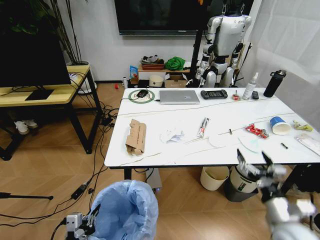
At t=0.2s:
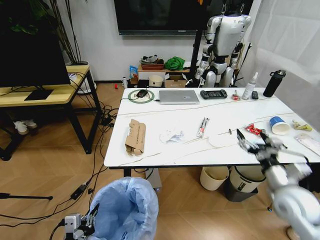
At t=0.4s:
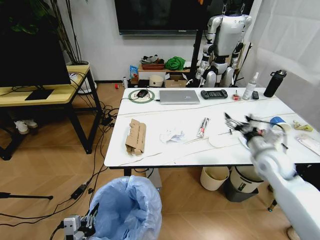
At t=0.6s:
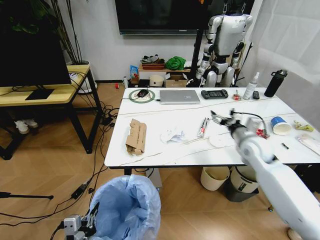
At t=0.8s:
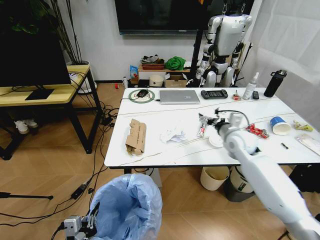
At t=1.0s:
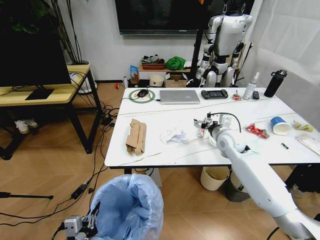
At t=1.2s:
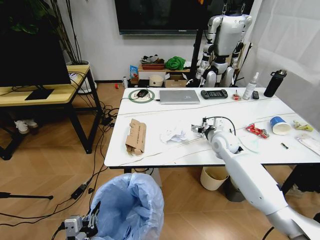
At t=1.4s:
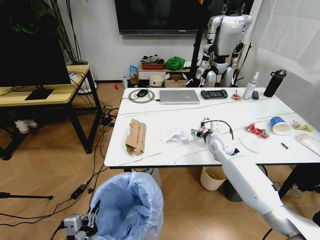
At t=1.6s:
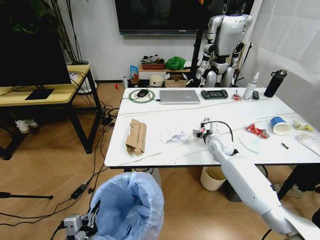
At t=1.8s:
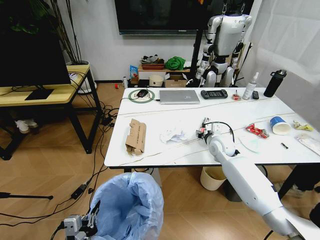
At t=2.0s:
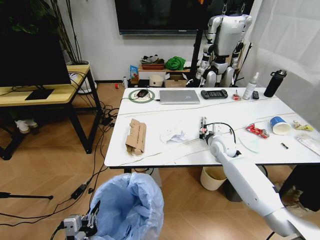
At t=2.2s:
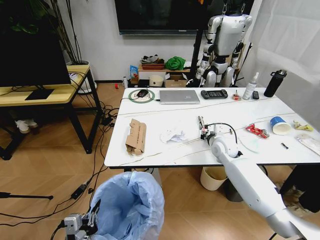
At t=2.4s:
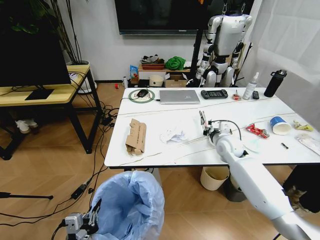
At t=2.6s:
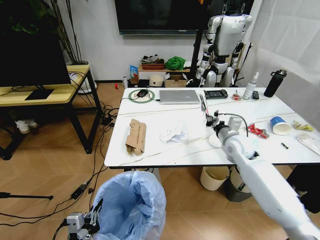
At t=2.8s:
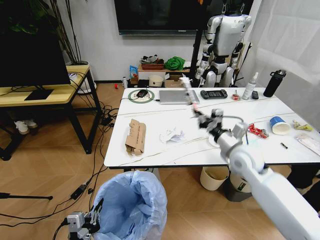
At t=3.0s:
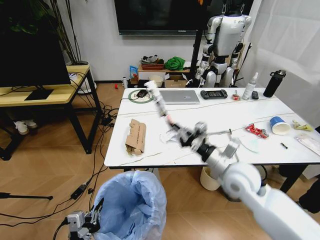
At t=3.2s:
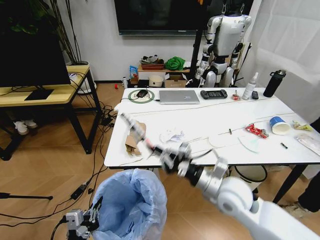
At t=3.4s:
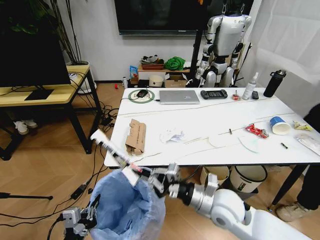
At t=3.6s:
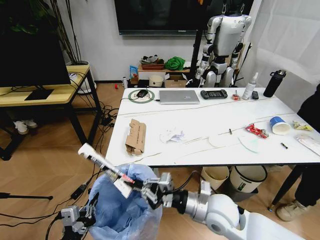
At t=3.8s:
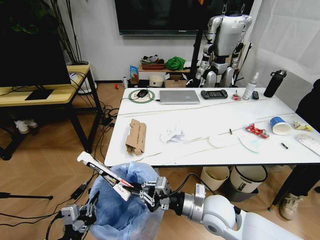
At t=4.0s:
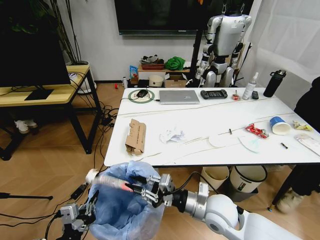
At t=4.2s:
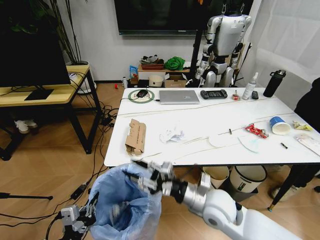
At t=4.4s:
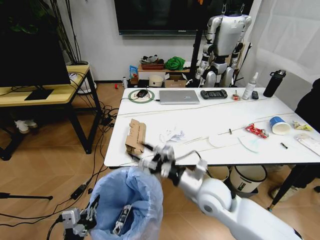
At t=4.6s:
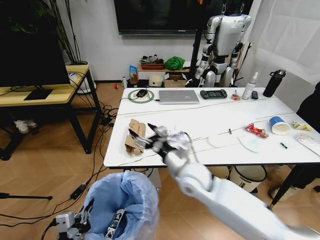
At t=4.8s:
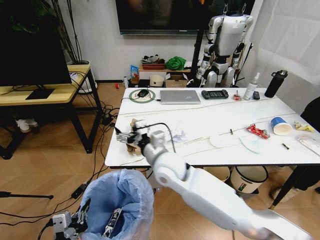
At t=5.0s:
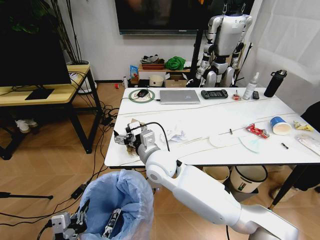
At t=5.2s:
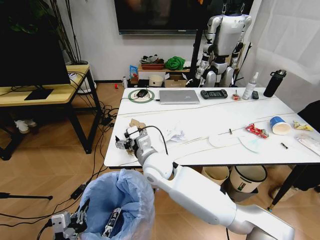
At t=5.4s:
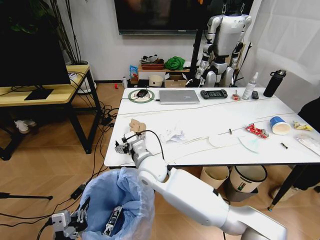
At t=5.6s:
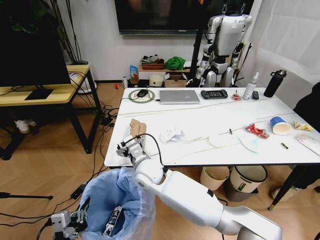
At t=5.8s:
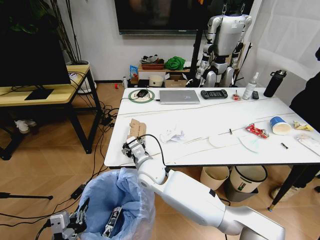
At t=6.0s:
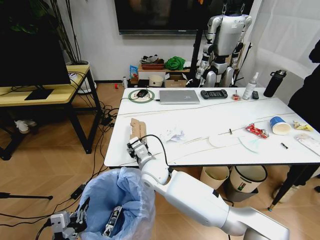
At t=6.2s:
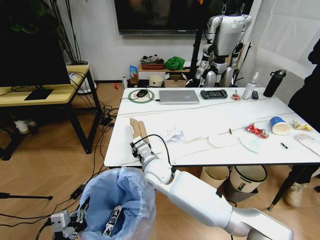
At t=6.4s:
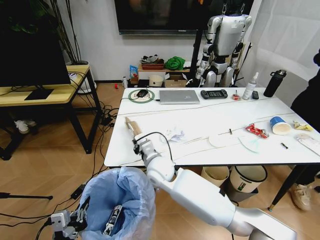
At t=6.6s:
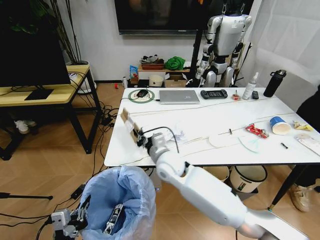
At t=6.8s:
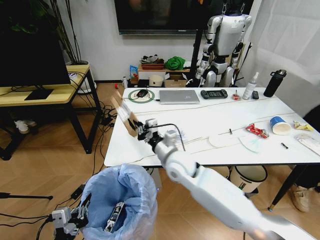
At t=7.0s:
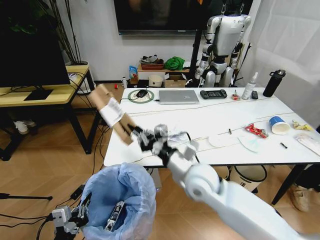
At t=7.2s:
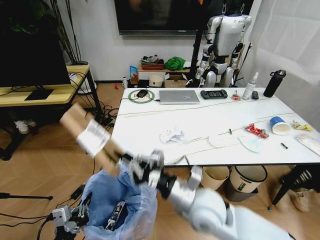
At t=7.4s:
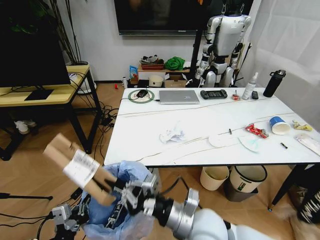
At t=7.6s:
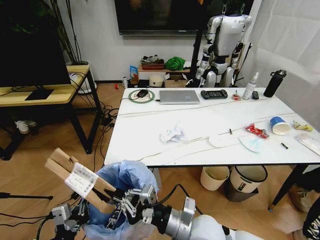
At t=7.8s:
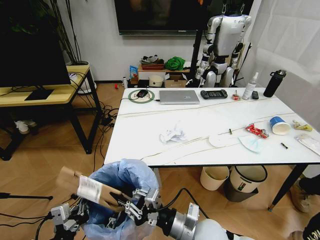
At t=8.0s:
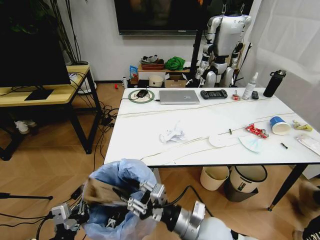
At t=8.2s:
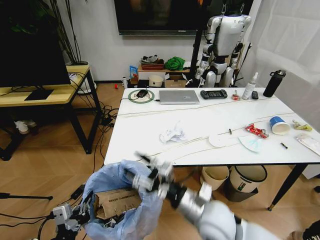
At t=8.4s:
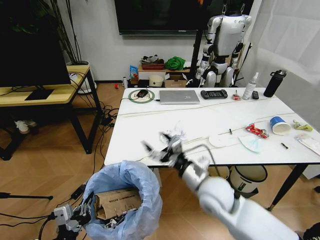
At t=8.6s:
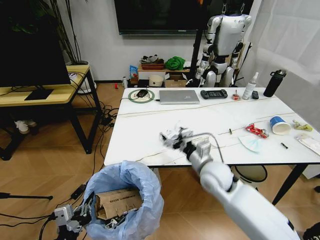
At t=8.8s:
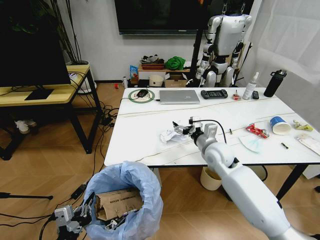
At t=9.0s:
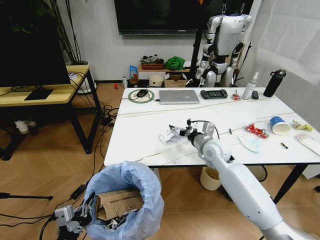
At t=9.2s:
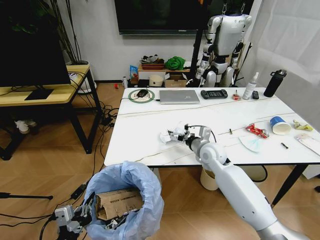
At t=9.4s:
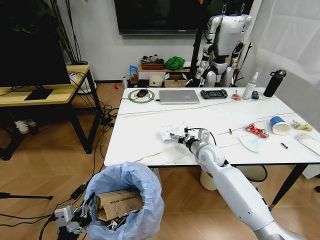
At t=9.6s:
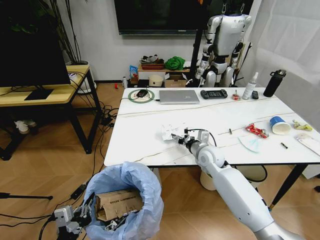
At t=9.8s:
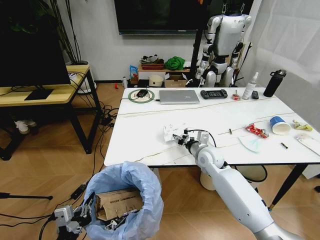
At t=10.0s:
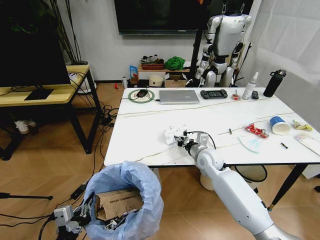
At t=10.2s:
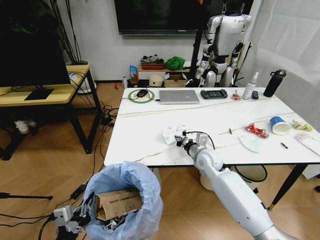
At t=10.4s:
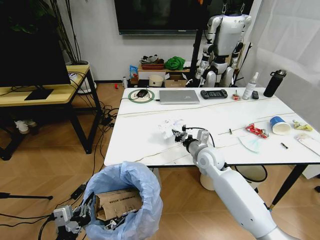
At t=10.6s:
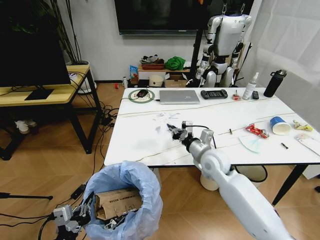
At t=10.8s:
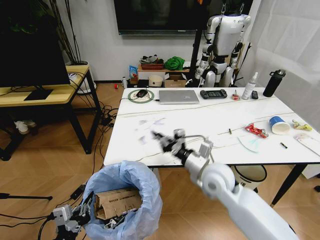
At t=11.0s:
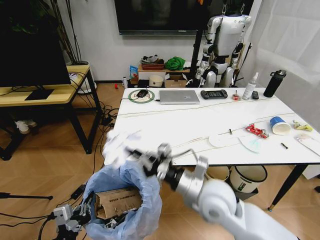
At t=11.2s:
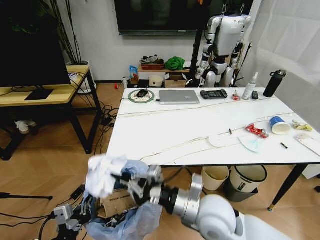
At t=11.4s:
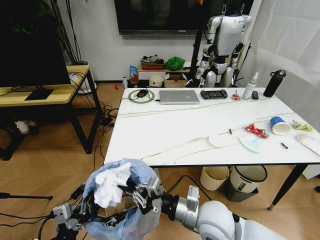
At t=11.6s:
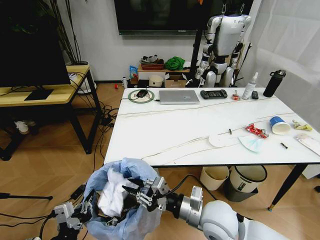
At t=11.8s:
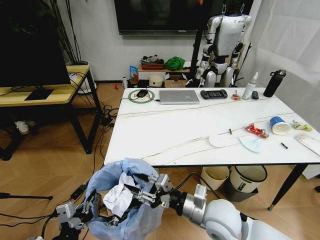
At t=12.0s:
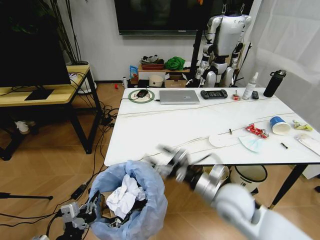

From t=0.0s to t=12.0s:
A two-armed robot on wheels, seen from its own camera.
Task of the whole recording: Pick up the trash bin and place the trash from the table into it.
From t=0.0s to t=1.6s: The right gripper moves forward, some 30 cm; the left gripper moves roughly 5 cm.
From t=1.6s to t=3.0s: The right gripper moves backward and upward, about 20 cm, and closes its fingers.
From t=3.0s to t=4.4s: The right gripper moves to the left, some 10 cm, and opens.
From t=4.4s to t=6.0s: The right gripper heads to the left and forward, covering about 20 cm.
From t=6.0s to t=7.6s: The right gripper travels backward and to the right by approximately 25 cm, and closes its fingers.
From t=7.6s to t=9.0s: The right gripper shifts roughly 25 cm forward, and opens its fingers.
From t=9.0s to t=10.4s: The right gripper closes up.
From t=10.4s to t=12.0s: The right gripper travels backward by approximately 15 cm, and opens.

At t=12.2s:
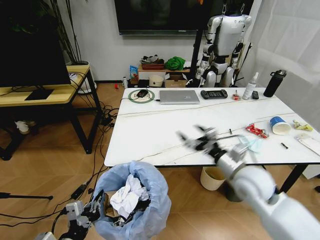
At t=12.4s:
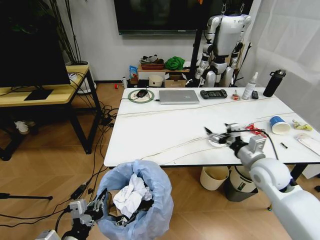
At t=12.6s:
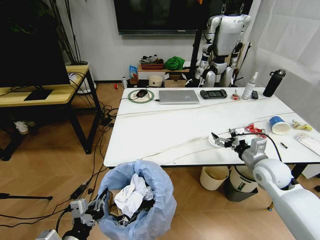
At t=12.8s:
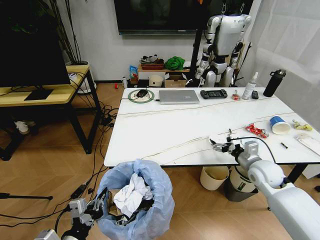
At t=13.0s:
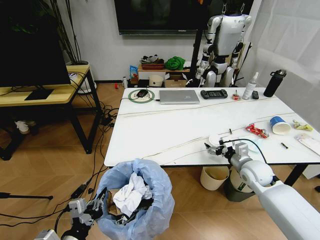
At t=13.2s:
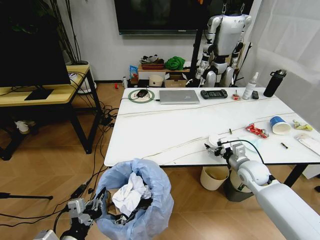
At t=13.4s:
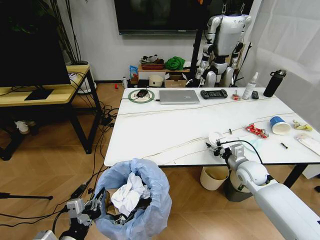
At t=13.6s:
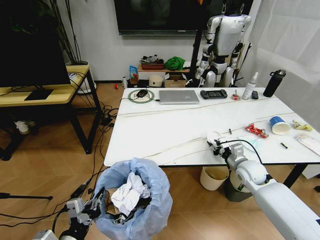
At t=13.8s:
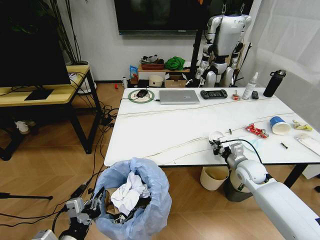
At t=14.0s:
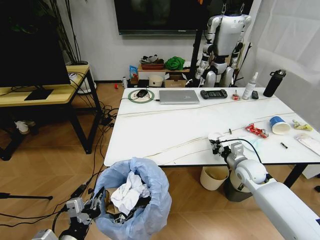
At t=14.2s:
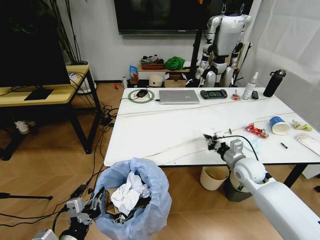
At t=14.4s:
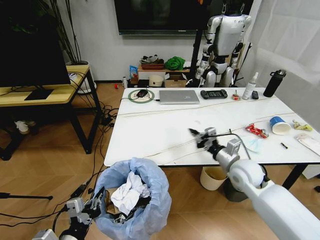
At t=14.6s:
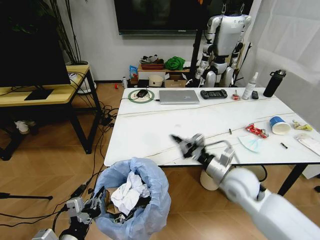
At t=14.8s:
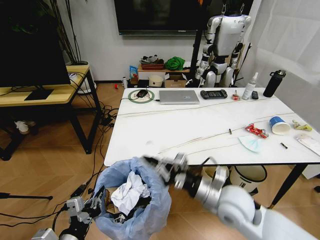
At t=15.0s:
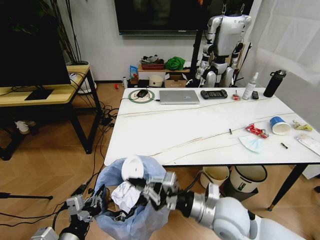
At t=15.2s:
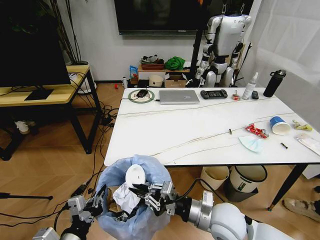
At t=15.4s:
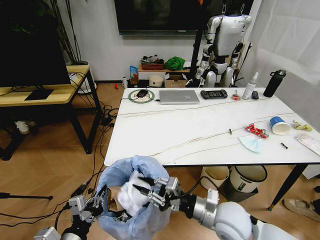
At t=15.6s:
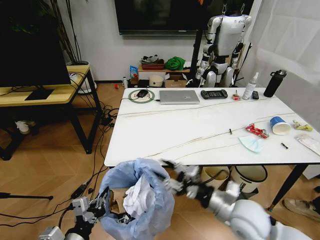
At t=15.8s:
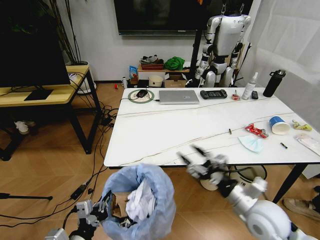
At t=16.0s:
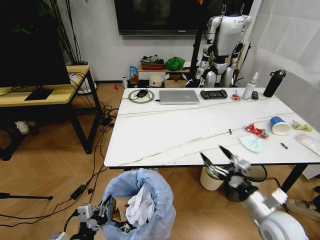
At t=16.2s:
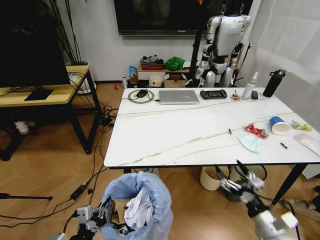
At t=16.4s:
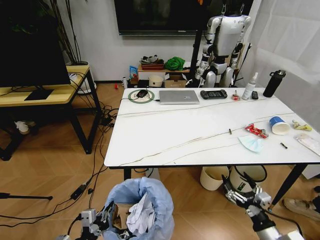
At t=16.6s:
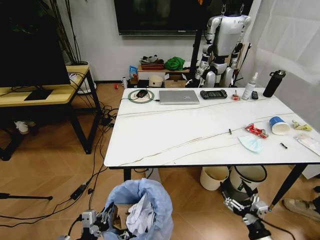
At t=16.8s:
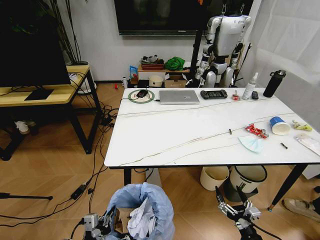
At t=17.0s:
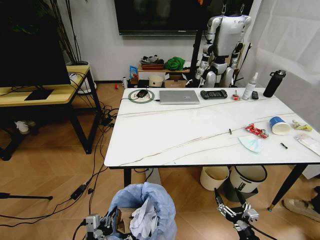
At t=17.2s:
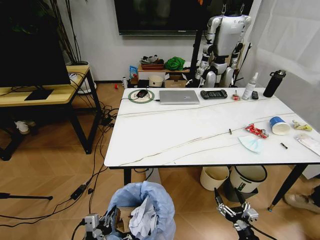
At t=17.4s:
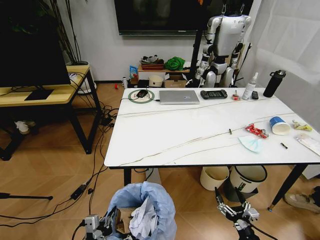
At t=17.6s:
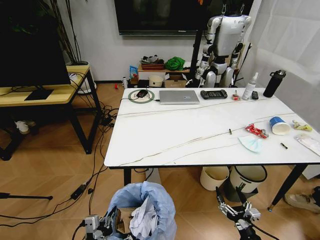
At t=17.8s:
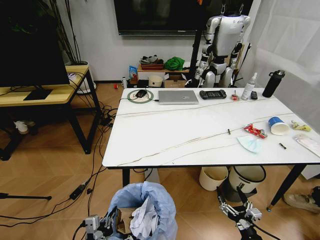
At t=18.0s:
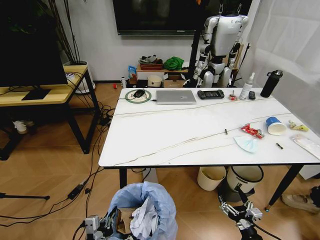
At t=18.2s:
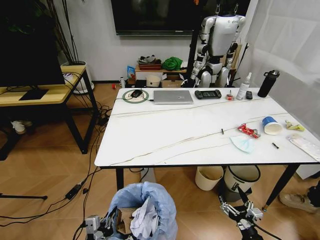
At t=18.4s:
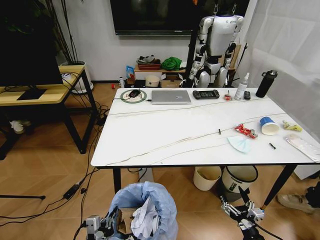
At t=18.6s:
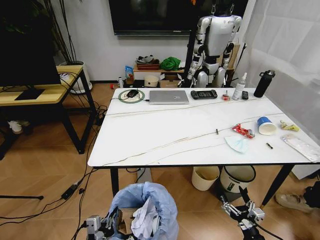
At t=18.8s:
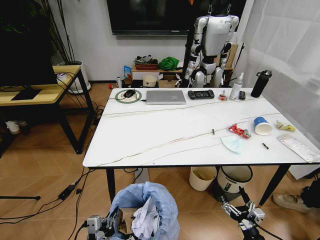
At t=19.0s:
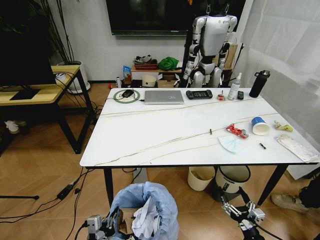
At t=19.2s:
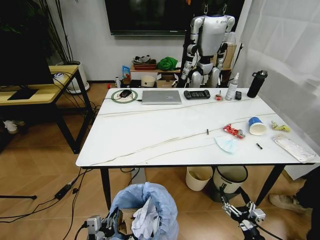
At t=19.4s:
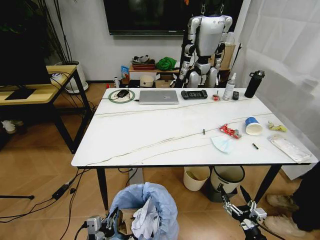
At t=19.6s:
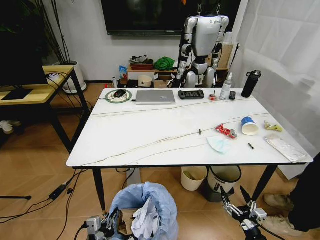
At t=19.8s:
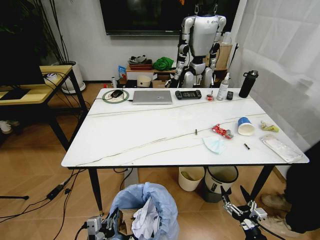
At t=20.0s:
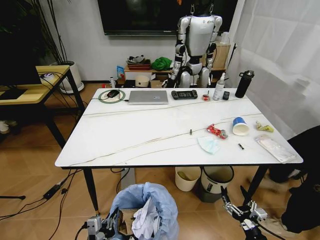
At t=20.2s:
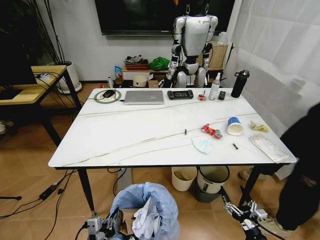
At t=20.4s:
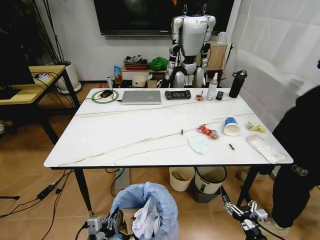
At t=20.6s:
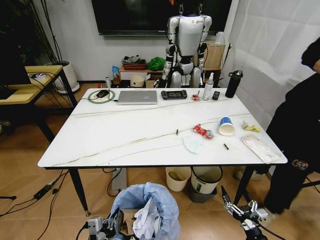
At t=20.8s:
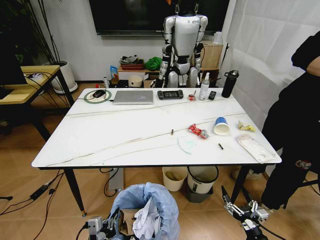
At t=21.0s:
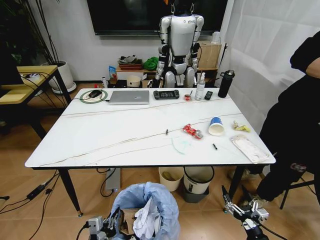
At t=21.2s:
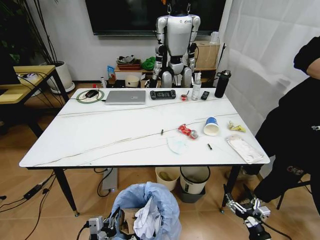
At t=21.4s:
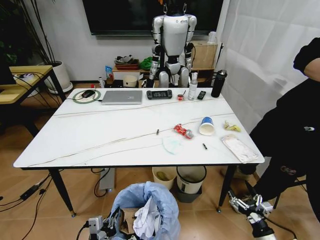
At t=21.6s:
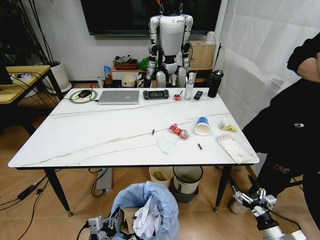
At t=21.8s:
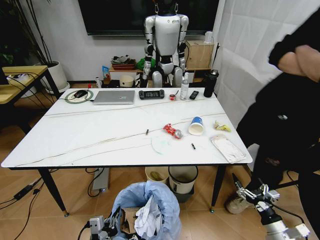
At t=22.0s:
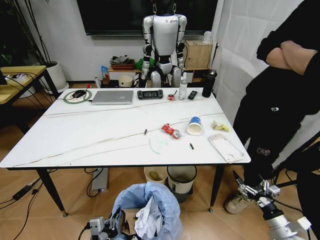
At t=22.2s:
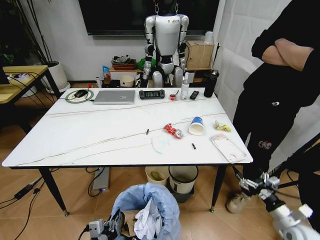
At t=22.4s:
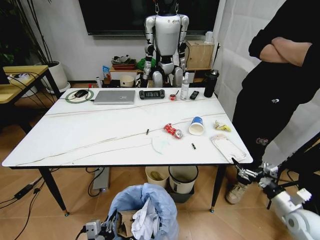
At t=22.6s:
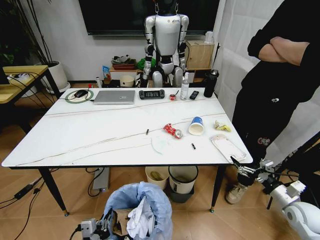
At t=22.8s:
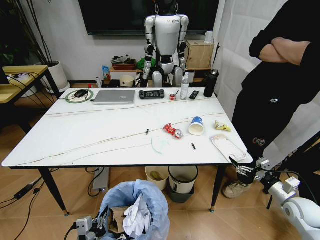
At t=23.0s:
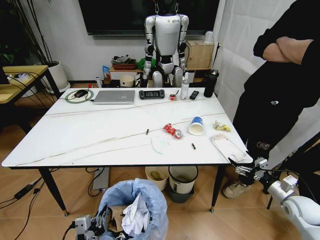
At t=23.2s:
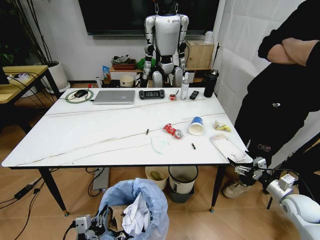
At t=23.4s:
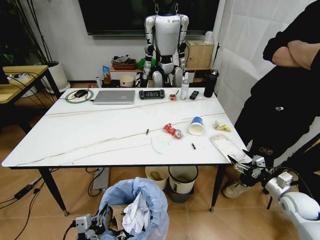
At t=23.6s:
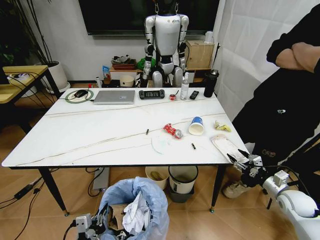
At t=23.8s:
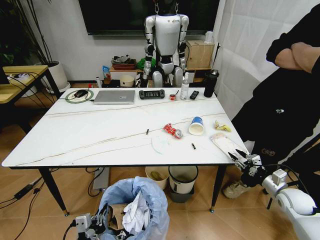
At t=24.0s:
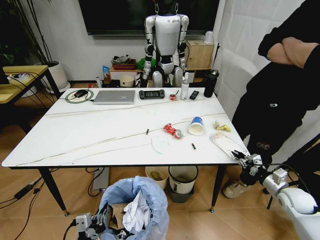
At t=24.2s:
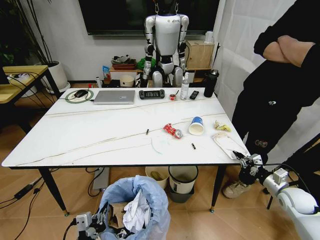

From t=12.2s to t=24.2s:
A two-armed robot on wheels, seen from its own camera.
Task of the whole recording: Pick up the trash bin and place the trash from the table into it.
From t=12.2s to t=13.8s: The right gripper goes some 15 cm downward, forward and to the right, and closes.
From t=13.8s to t=15.2s: The right gripper moves backward and to the left, roughly 25 cm.
From t=15.2s to t=16.6s: The right gripper is displaced to the right, downward and backward by roughly 25 cm, and opens. The left gripper shifts roughly 10 cm downward.
From t=21.2s to t=22.6s: The right gripper shifts roughly 20 cm forward, to the right and upward.
From t=22.6s to t=24.2s: The right gripper heads forward, covering about 5 cm, and closes its fingers.
